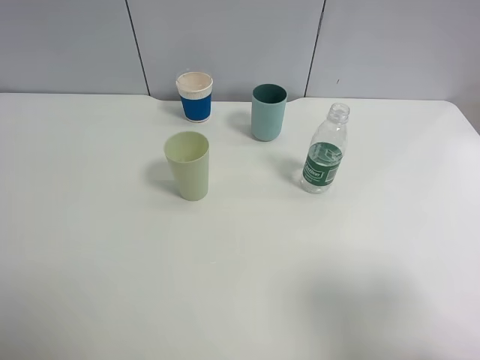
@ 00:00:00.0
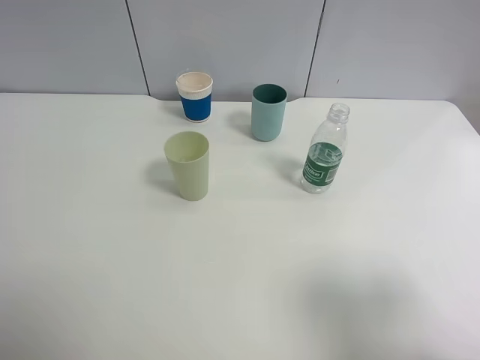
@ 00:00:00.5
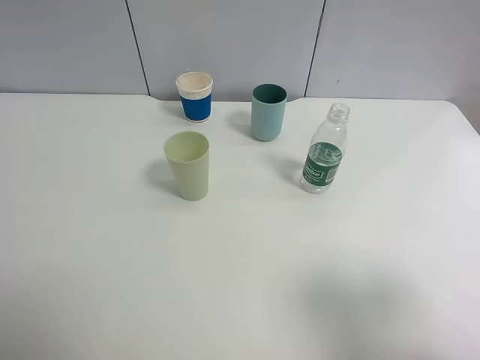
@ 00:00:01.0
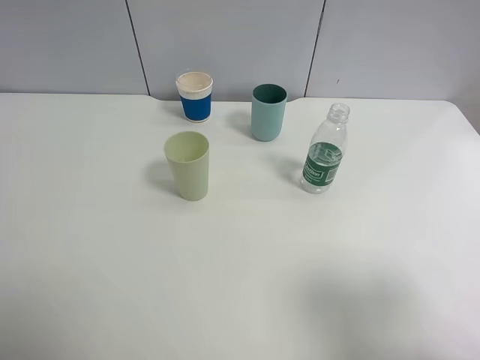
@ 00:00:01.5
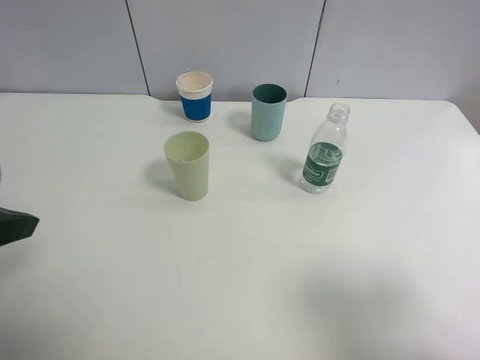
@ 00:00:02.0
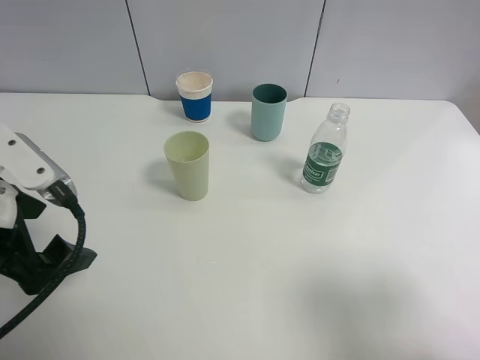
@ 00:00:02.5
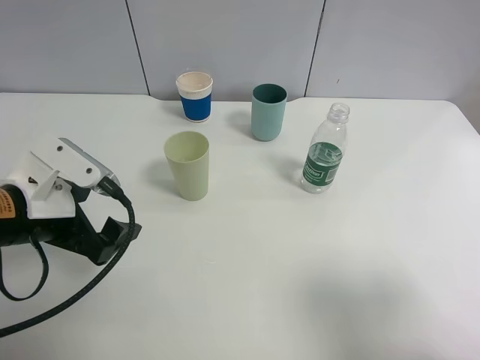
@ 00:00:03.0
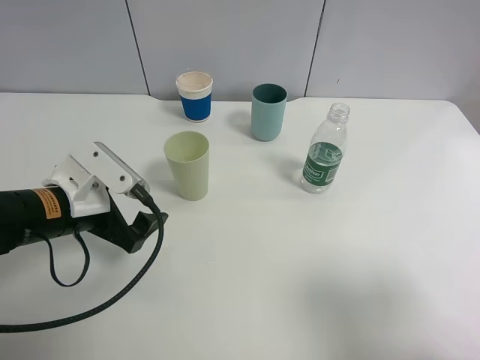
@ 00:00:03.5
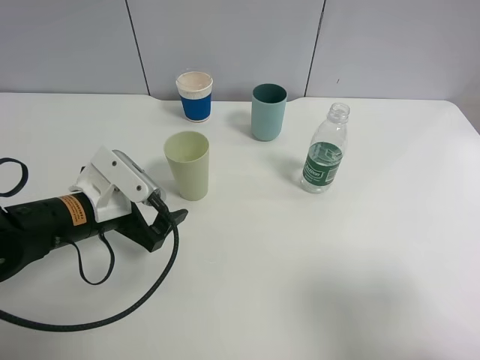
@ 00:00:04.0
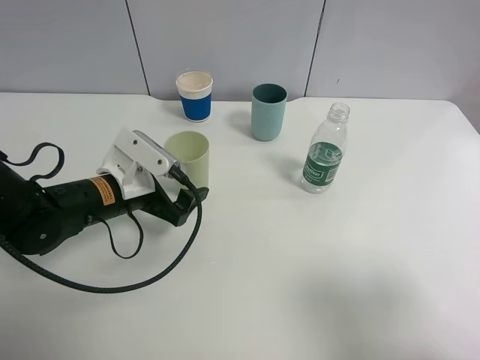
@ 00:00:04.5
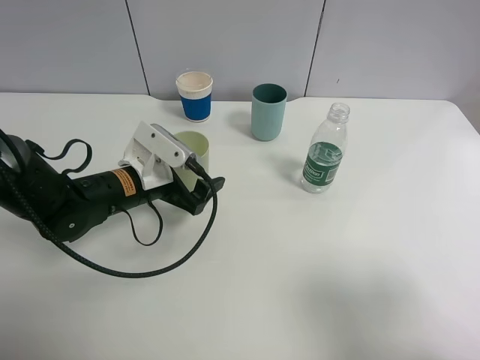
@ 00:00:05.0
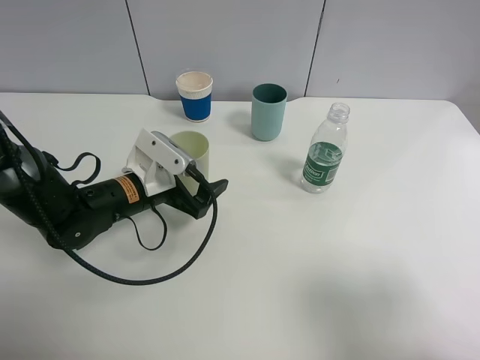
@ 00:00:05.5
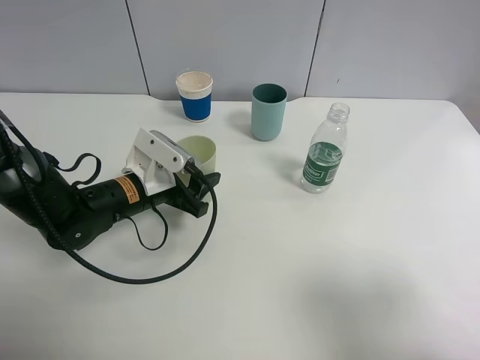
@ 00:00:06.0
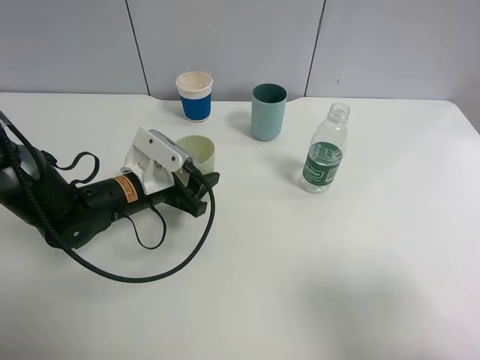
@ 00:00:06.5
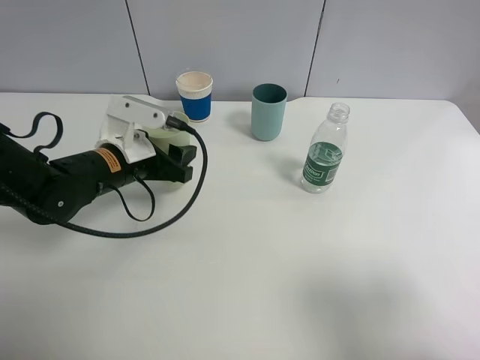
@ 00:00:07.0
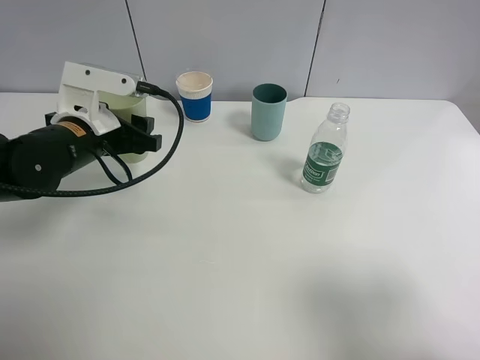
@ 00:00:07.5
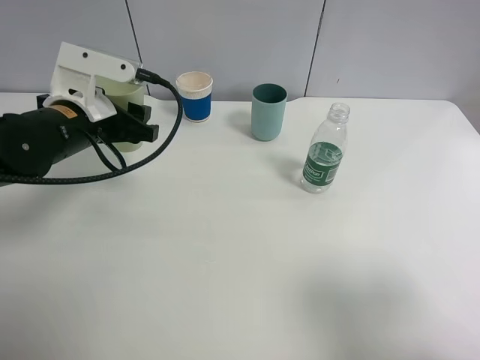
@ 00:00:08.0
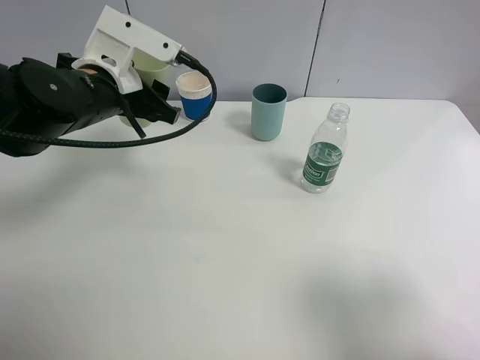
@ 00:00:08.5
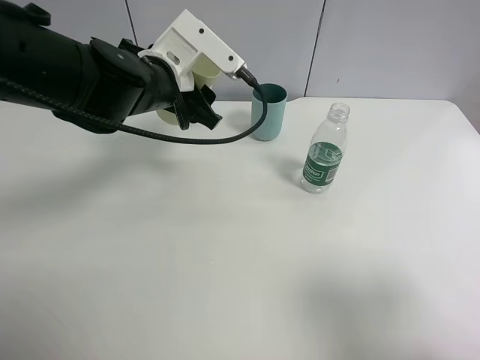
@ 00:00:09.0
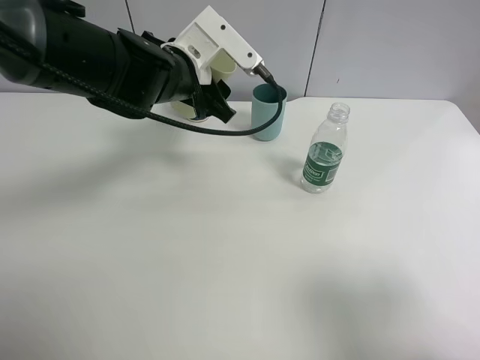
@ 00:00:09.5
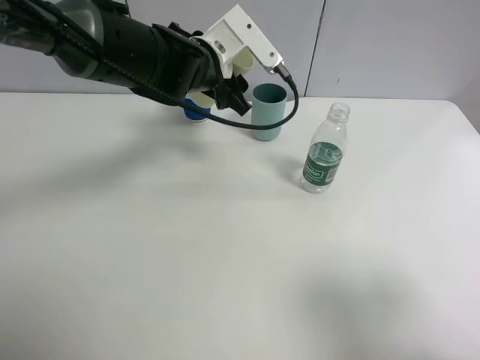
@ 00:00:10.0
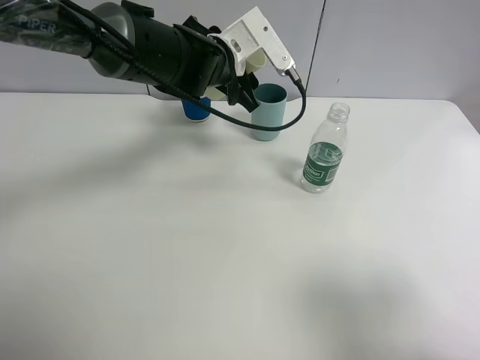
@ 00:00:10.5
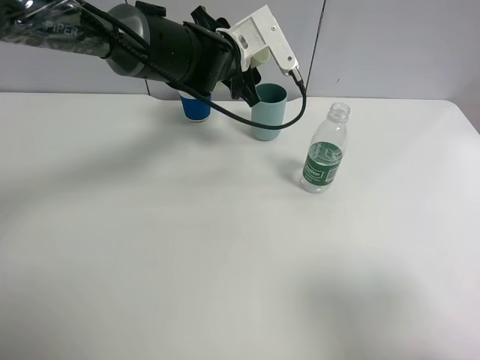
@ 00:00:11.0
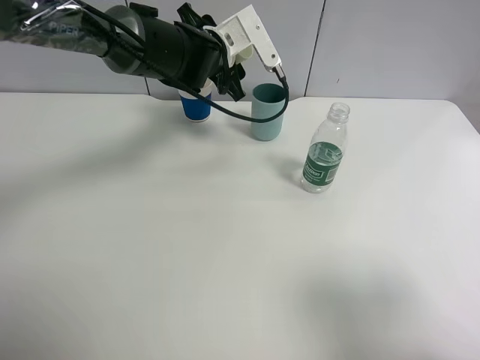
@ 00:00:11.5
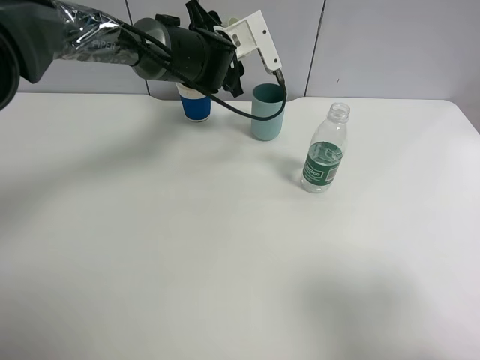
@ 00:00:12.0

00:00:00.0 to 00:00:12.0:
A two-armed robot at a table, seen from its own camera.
Task of the whole recording: use a clamp to hold the bottle of the drink, pour the beverage into a random cup, then clamp the cup containing the drink and pour the drink into another random cup.
Step, 00:00:00.0 to 00:00:07.0: Pick up the green plastic cup bottle with left gripper.
00:00:00.0 to 00:00:02.0: The left gripper shifts some 10 cm forward.
00:00:02.0 to 00:00:04.0: The left gripper travels downward, forward and to the right by about 20 cm.
00:00:04.0 to 00:00:06.0: The left gripper heads forward, covering roughly 5 cm, and closes its fingers.
00:00:06.0 to 00:00:08.0: The left gripper heads upward and to the left, covering about 10 cm.
00:00:08.0 to 00:00:10.0: The left gripper is displaced to the right and forward by roughly 15 cm.
00:00:10.0 to 00:00:12.0: The left gripper heads forward, covering approximately 10 cm.

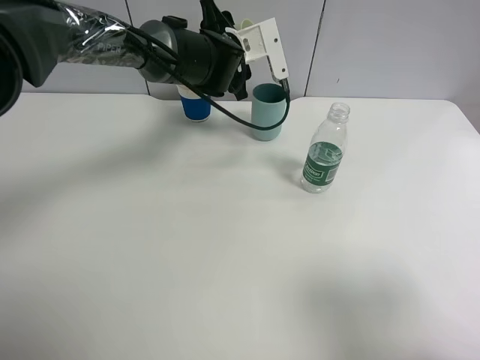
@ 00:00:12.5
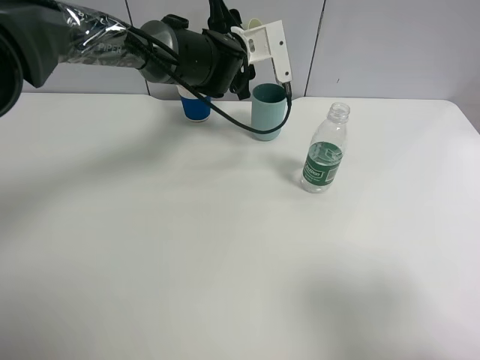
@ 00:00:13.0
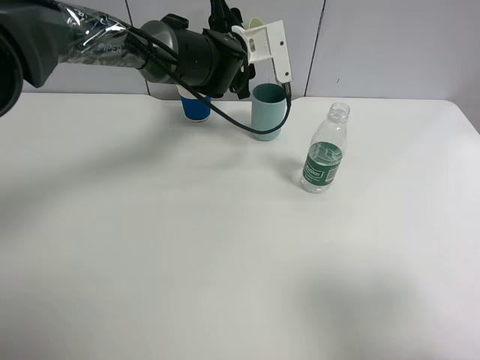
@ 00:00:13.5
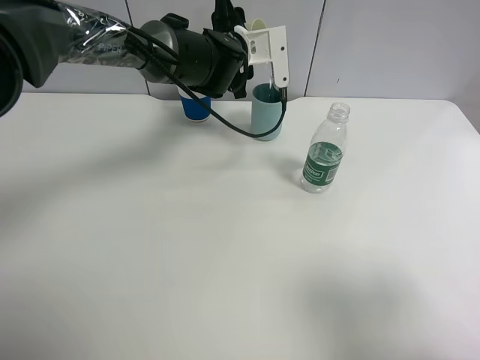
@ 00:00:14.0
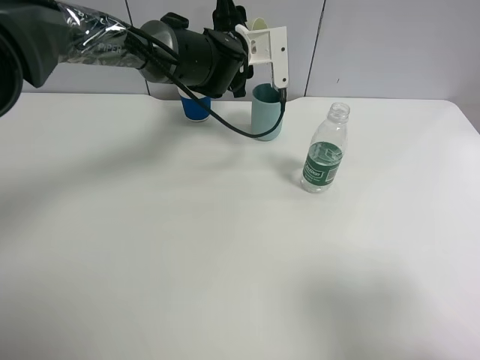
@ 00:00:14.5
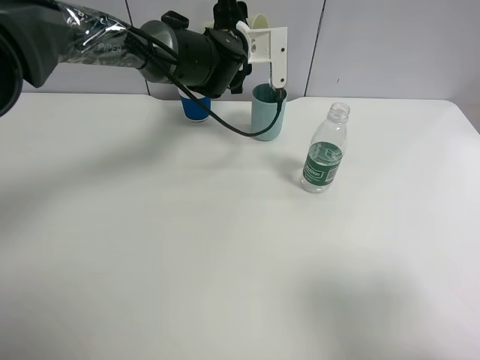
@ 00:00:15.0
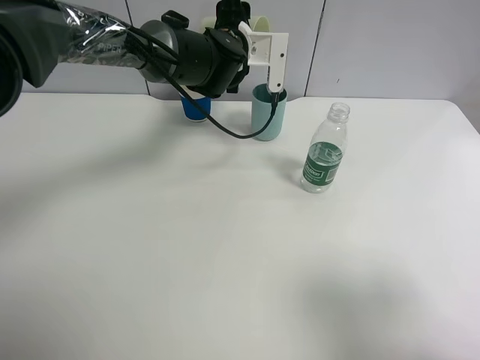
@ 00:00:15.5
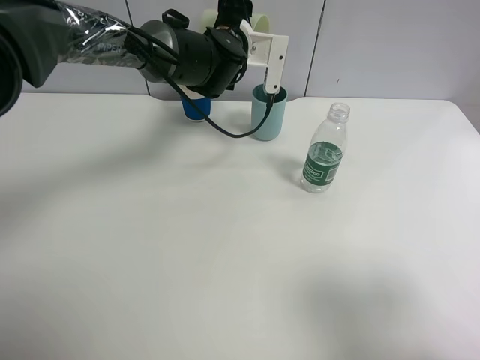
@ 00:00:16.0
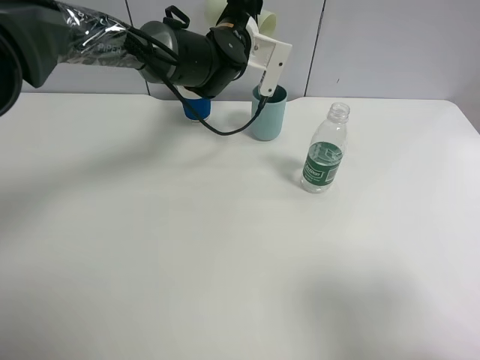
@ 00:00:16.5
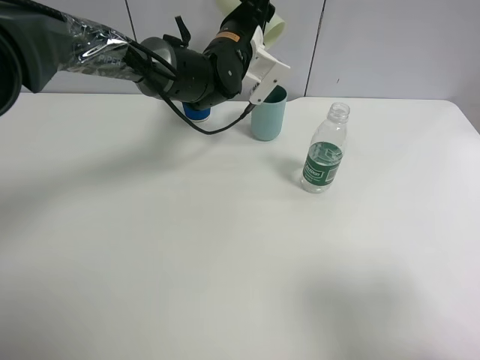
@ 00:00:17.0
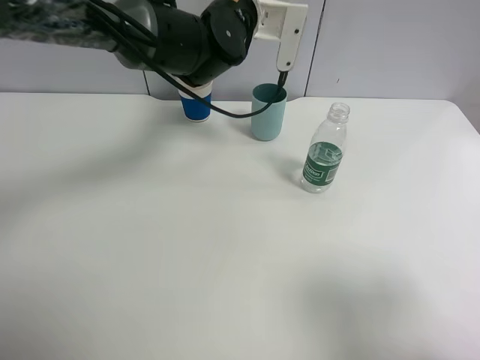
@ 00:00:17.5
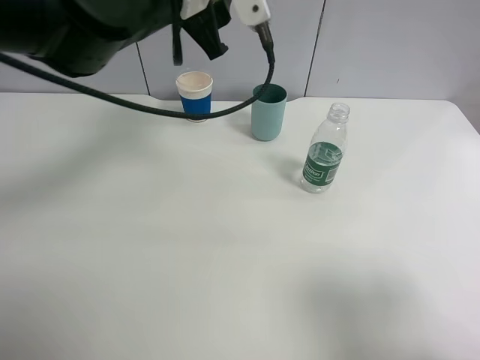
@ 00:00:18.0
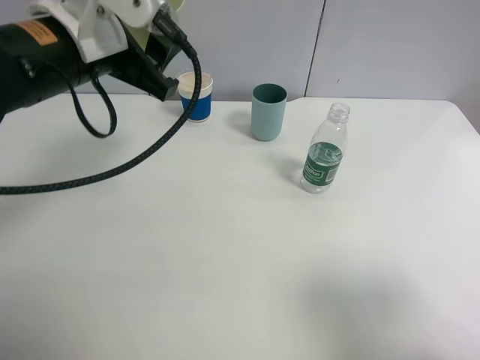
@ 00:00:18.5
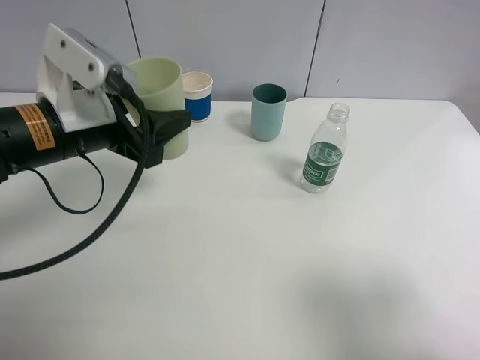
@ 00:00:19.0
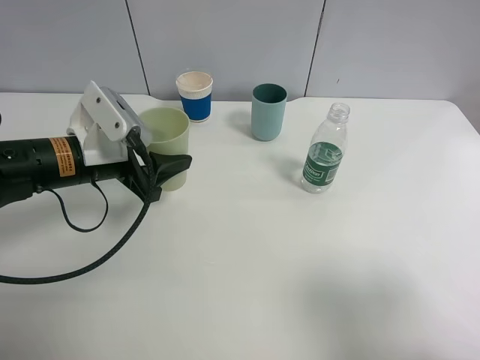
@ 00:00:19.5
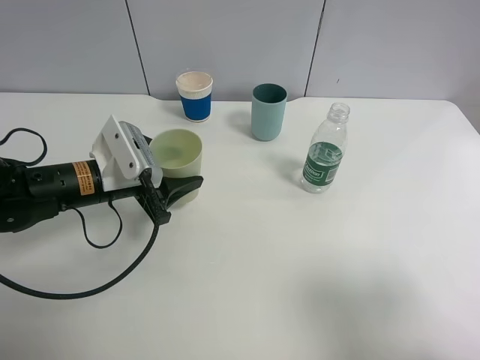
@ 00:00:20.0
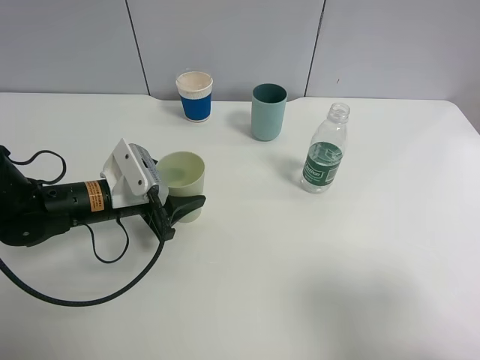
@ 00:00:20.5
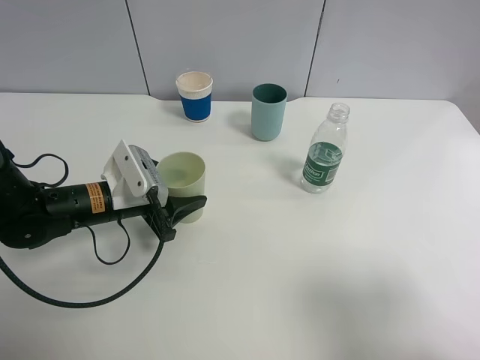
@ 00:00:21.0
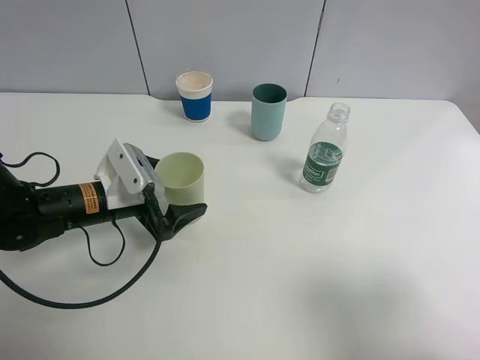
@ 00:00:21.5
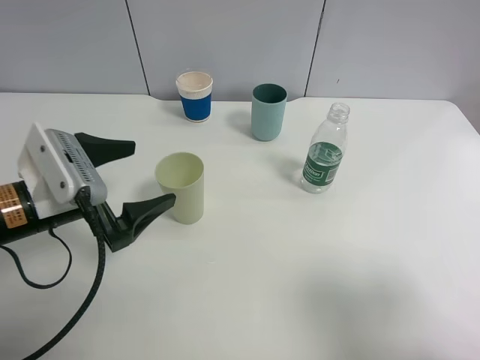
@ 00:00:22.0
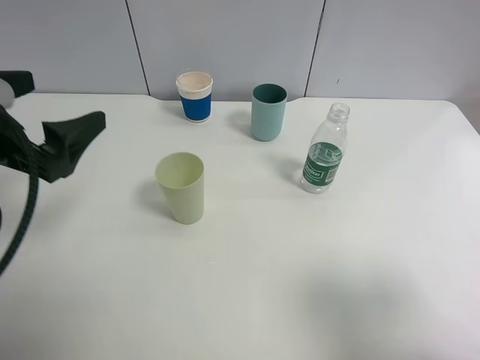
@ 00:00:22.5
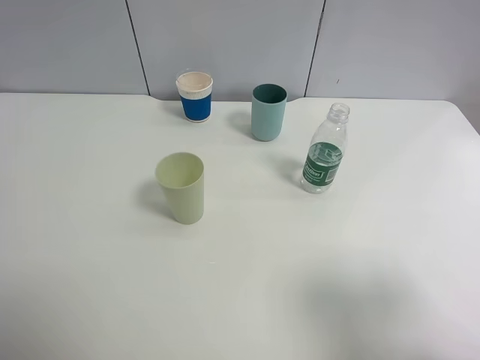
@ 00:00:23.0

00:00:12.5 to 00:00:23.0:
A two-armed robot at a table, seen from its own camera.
Task of the whole recording: use a clamp to hold the bottle of the drink, pour the beverage into a random cup, then clamp the cup containing the drink and pour the drink into another random cup.
Step, 00:00:12.5 to 00:00:17.0: Pour the water into the blue plastic cup with left gripper.
Step, 00:00:17.5 to 00:00:22.0: Place the green plastic cup on the table with left gripper.
00:00:12.5 to 00:00:14.5: The grippers move only a little.
00:00:16.5 to 00:00:19.0: The left gripper moves backward and to the left, about 25 cm.
00:00:19.0 to 00:00:21.0: The left gripper travels downward by some 15 cm.
00:00:21.0 to 00:00:23.0: The left gripper travels upward, backward and to the left by approximately 35 cm, and opens its fingers.

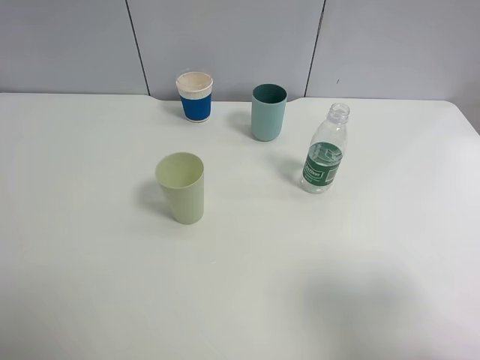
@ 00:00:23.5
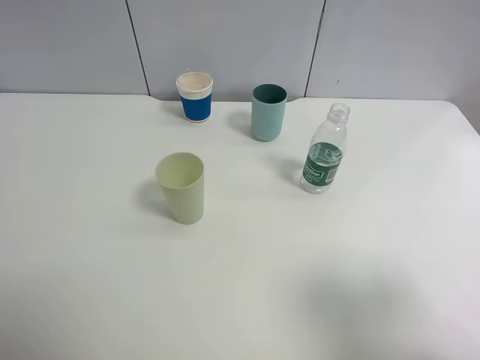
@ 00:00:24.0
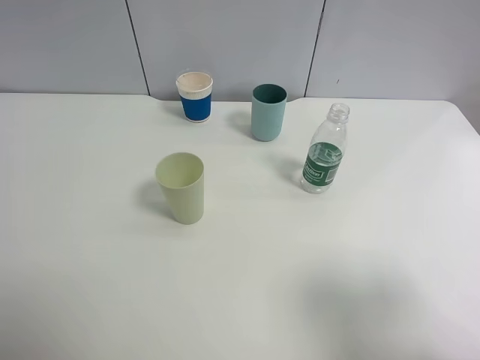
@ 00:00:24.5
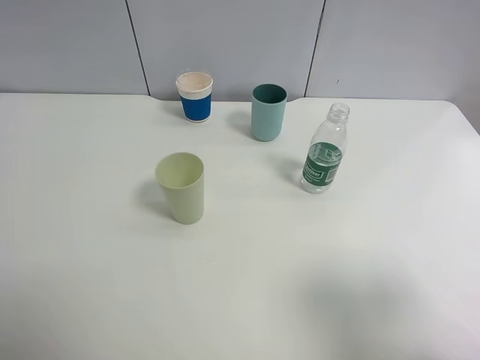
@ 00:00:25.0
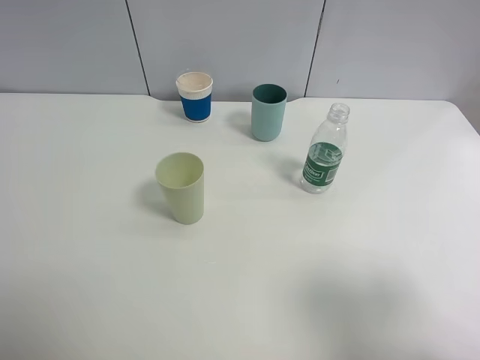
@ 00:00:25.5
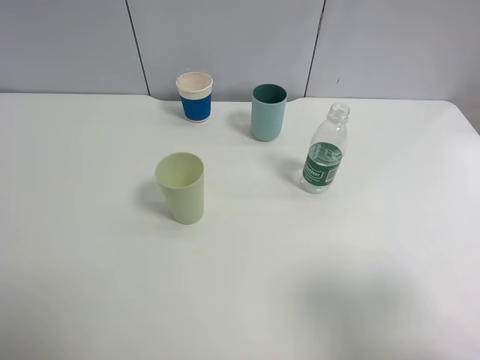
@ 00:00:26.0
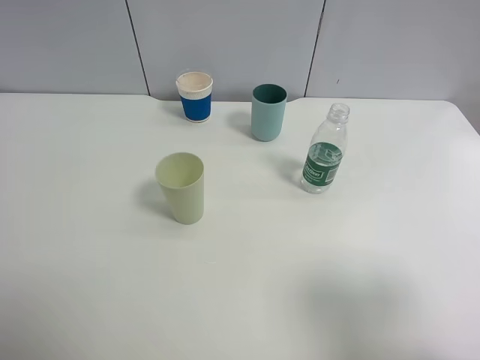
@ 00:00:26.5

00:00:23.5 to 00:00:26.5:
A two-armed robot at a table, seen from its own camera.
Task of the whole recording: use a clamp to hold the bottle of the drink, pour the beverage into a random cup, then clamp the cup containing the drink and pour the drink into another random cup.
00:00:25.0 to 00:00:26.5: Both grippers stay put.
